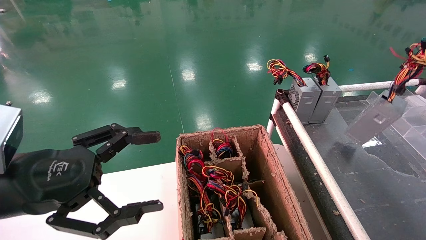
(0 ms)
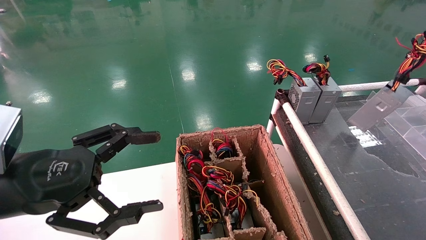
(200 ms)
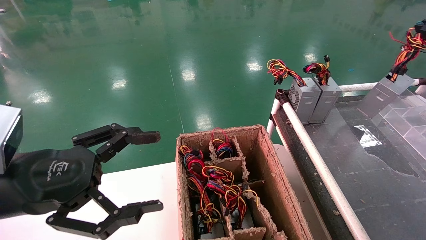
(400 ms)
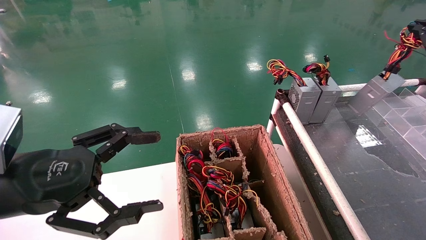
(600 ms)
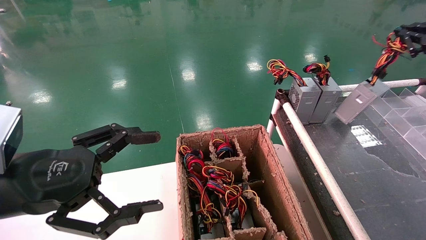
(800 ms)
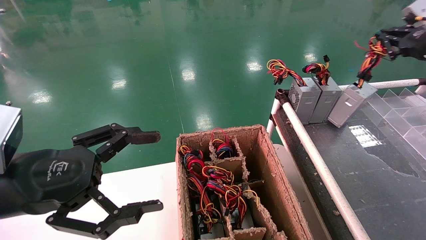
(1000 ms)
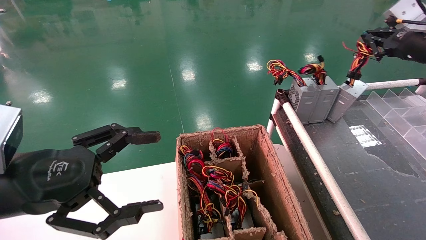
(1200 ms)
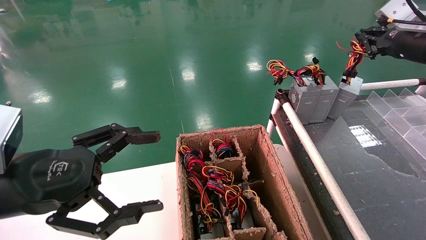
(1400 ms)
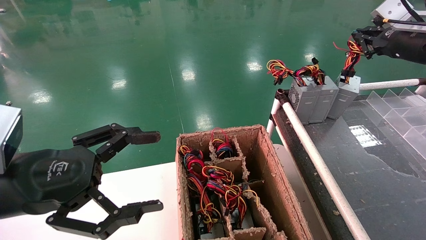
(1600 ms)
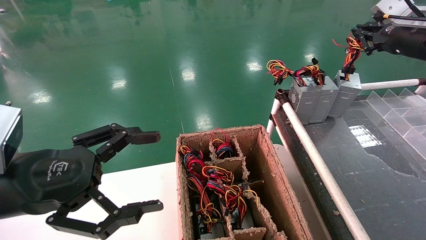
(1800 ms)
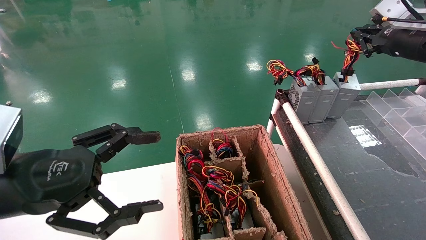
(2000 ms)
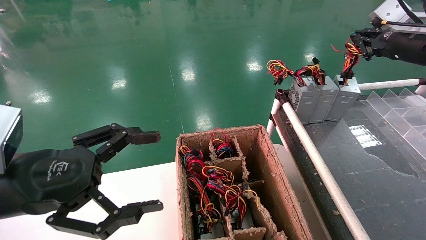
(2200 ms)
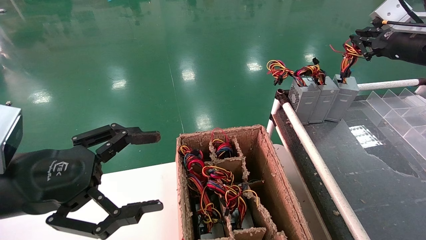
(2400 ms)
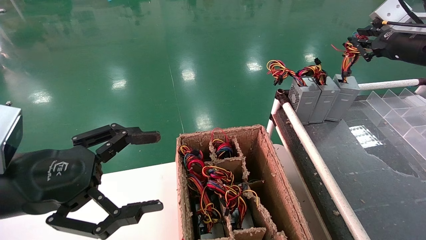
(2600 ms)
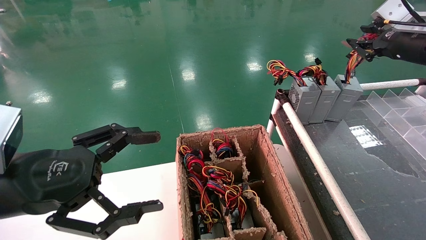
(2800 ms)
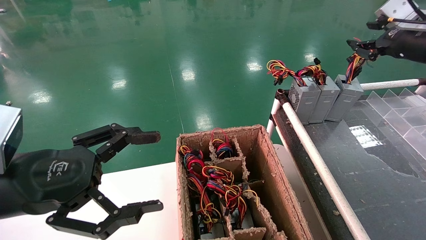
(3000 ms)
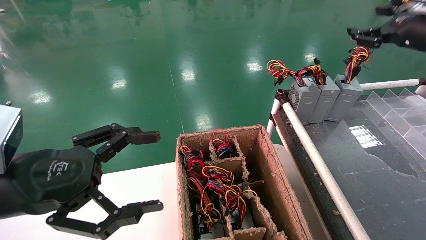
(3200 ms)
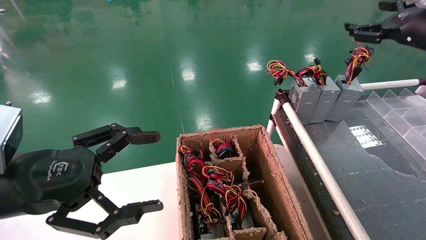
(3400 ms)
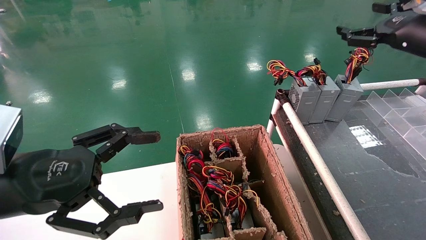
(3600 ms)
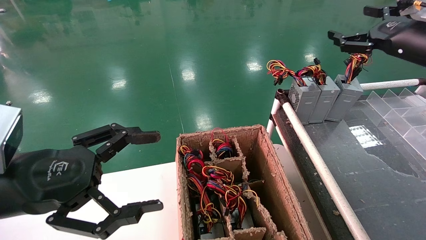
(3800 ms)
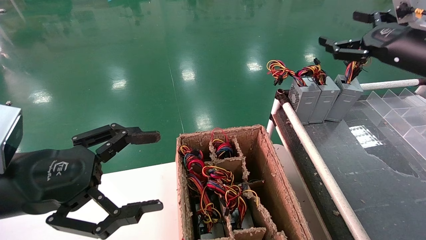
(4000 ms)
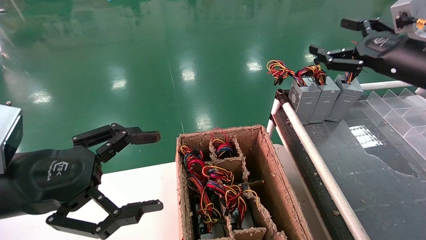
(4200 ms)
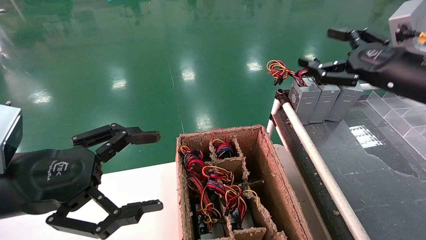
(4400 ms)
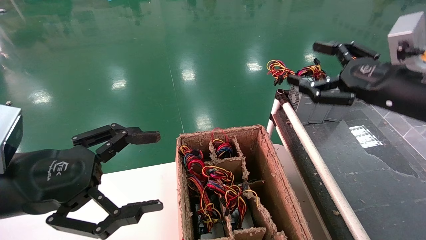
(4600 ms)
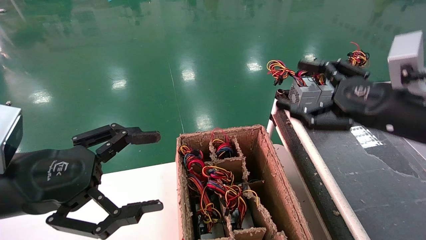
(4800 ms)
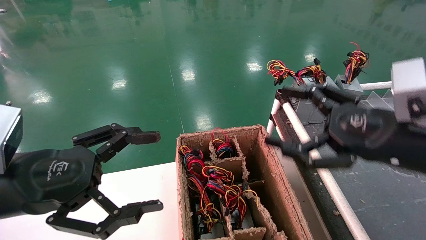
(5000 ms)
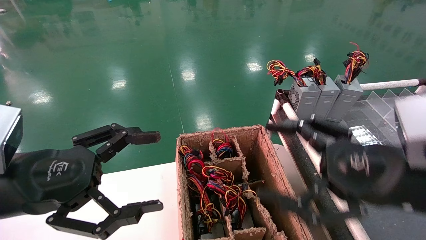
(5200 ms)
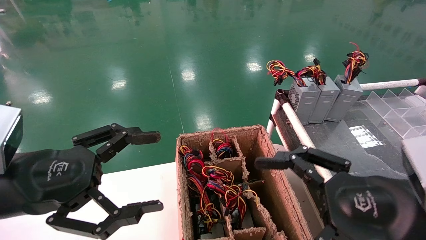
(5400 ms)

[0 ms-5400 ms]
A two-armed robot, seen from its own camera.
Step, 0 ms to 2400 ms: Place the power supply on the operating table.
0 ms to 1400 ms: The right gripper travels forward and to the left by about 15 cm.
1400 ms to 2800 ms: Both grippers stay about where they are.
2800 ms to 4000 ms: The right gripper ends up approximately 5 cm from where it was, and opens its fingers.
4000 ms to 5400 ms: The right gripper moves backward, downward and to the left, about 25 cm.
